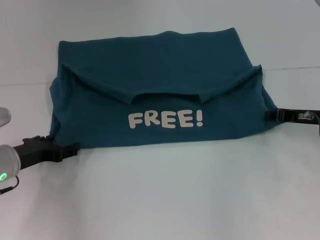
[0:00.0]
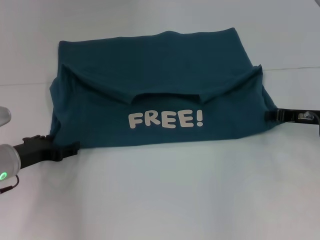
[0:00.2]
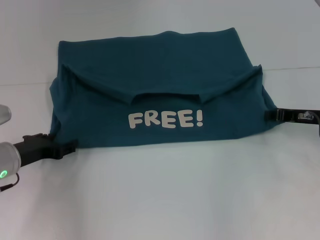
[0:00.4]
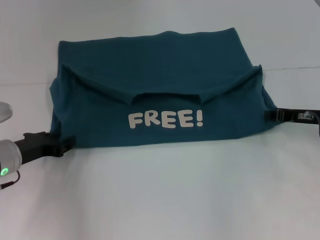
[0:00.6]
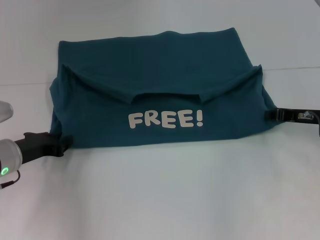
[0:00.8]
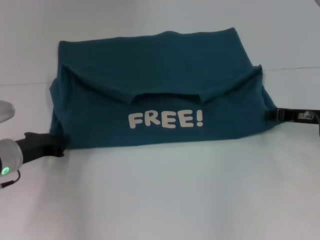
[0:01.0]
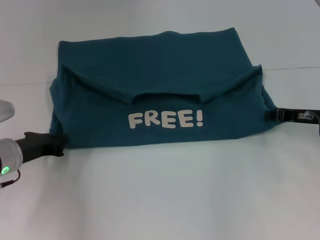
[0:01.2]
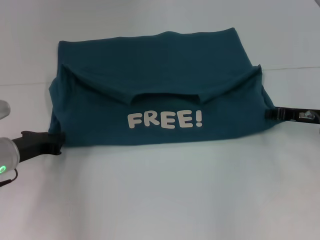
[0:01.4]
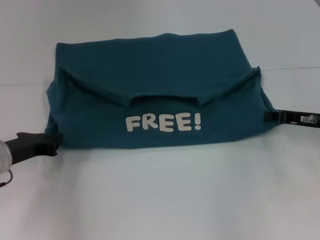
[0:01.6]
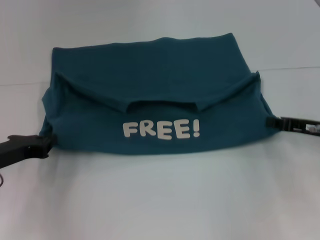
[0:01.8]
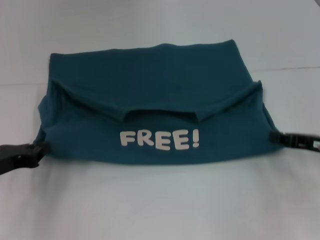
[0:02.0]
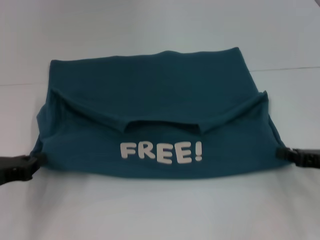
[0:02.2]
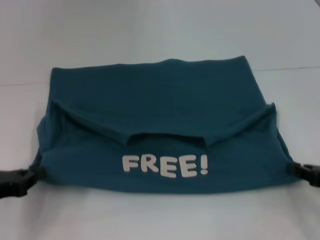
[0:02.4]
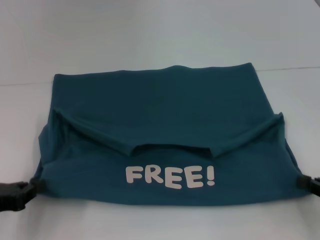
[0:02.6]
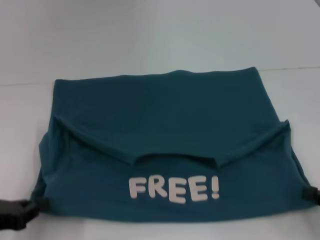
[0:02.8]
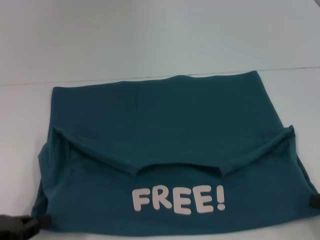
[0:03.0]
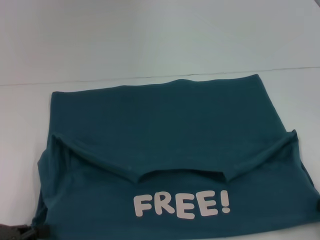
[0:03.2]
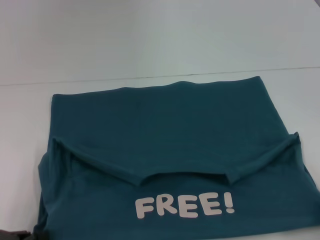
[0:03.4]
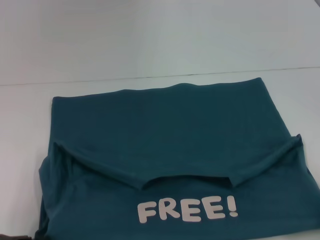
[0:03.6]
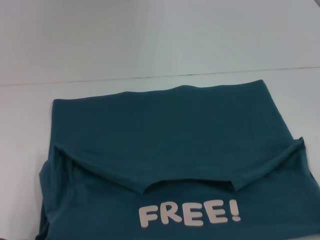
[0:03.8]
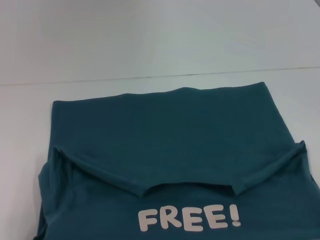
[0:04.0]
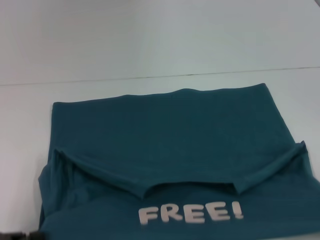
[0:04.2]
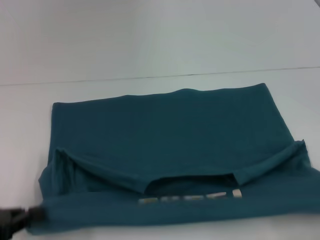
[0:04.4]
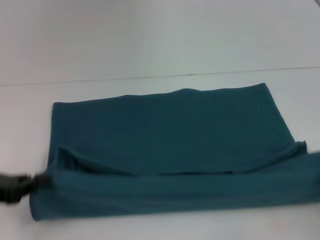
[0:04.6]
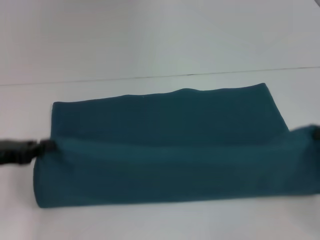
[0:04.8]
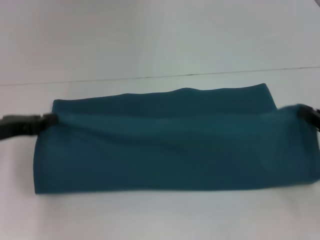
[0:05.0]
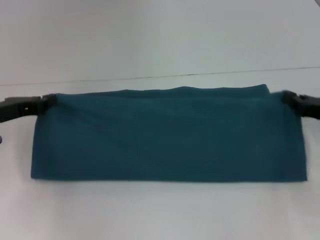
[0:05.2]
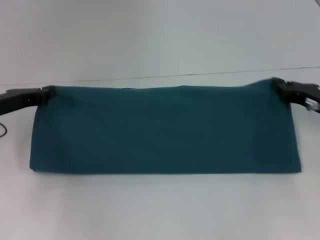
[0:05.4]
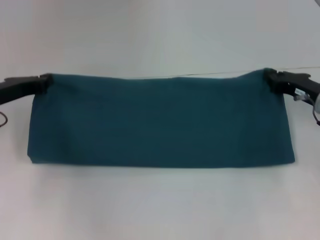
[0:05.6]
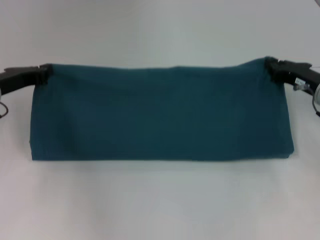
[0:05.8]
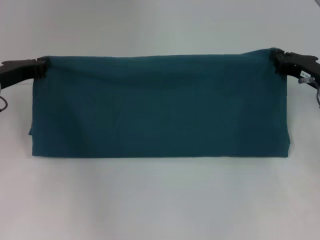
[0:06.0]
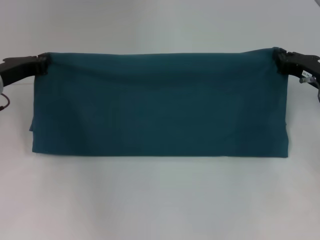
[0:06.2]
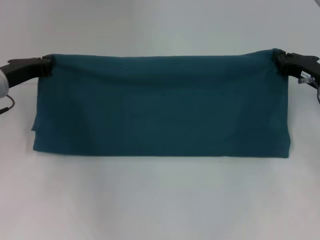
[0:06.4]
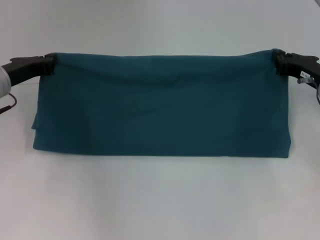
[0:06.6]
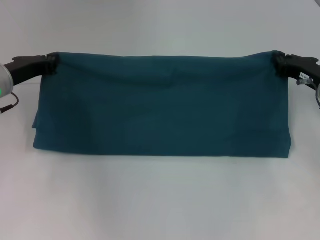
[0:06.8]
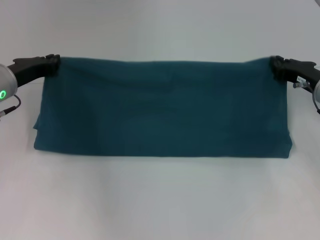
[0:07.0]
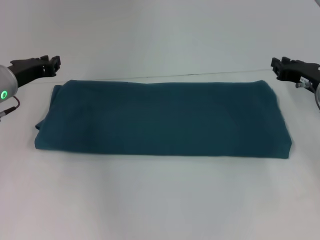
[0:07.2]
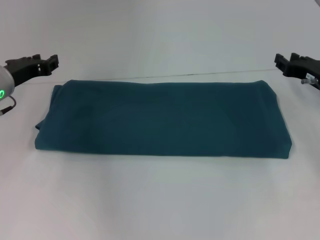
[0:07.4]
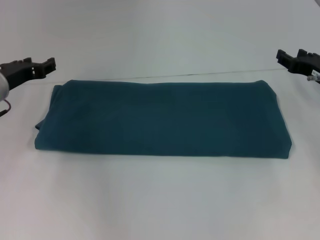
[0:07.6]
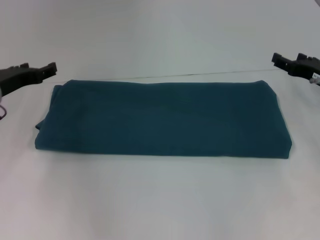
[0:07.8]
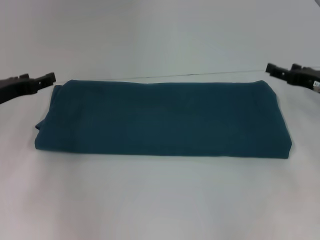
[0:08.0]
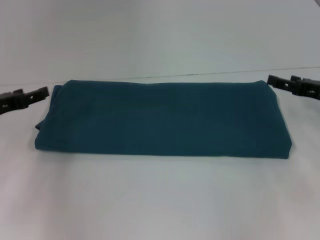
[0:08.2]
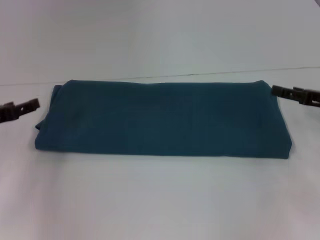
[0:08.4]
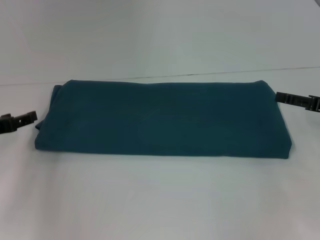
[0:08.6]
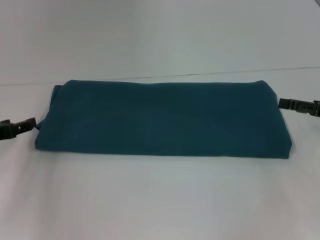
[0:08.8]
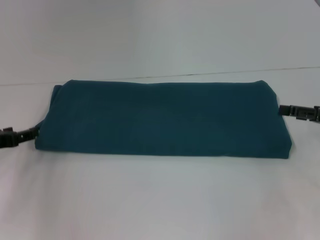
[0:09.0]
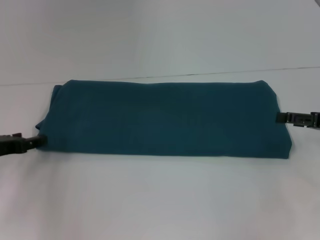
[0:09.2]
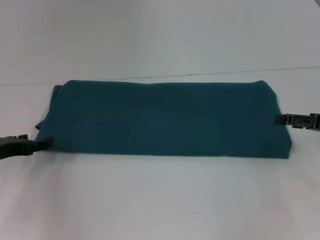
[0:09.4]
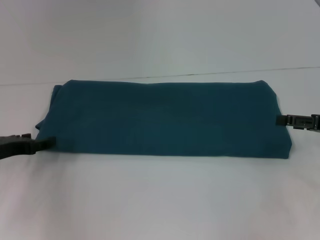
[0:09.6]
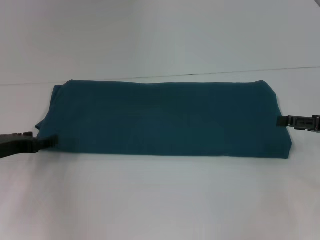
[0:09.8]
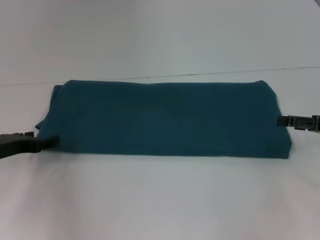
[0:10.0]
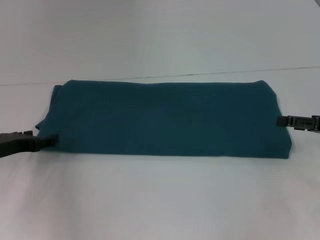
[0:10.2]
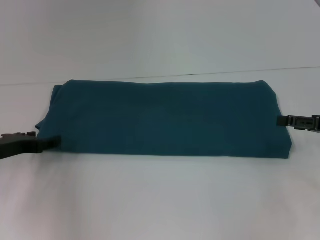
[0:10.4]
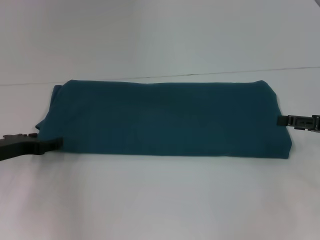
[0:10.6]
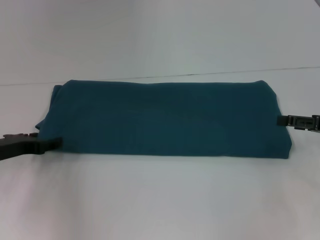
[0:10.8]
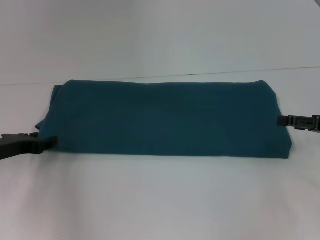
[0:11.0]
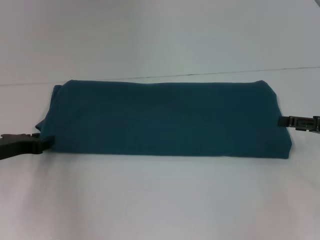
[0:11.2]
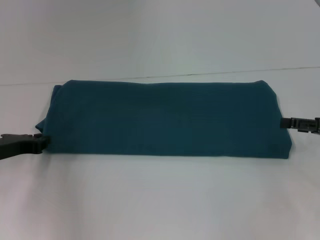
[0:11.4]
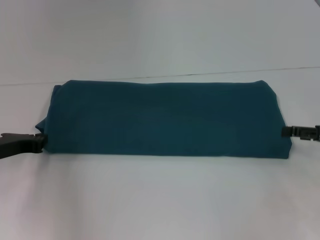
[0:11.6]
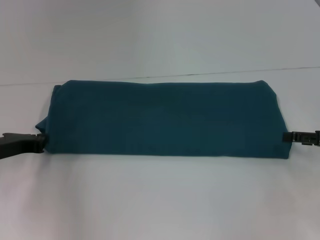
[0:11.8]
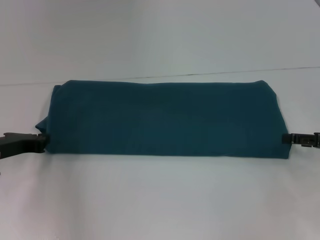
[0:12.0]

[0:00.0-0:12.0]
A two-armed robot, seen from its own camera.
Step, 0:00.0 to 0:03.4: Pull the clothes with your left hand.
Step, 0:00.0 to 0:03.4: Pull the clothes with your right hand.
Step, 0:03.6 to 0:07.0: Fold the clothes to the right.
0:00.0 to 0:01.6: The left gripper closes.
0:01.6 to 0:03.0: The right gripper travels backward by about 20 cm; the left gripper travels backward and to the left by roughly 15 cm.
0:03.0 to 0:04.4: The grippers move only a little.
0:04.4 to 0:06.0: The left gripper is displaced forward by about 20 cm. The right gripper travels forward and to the left by about 25 cm.
0:06.0 to 0:07.6: The right gripper opens its fingers. The left gripper opens.
0:07.6 to 0:09.0: The left gripper shifts some 10 cm backward and to the left. The right gripper goes about 10 cm backward, and opens up.
0:09.0 to 0:10.4: The grippers make only small movements.

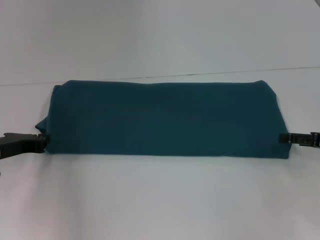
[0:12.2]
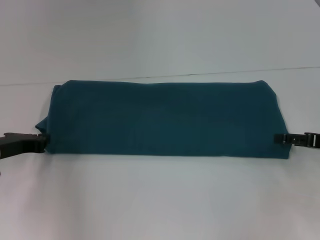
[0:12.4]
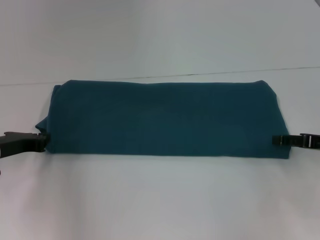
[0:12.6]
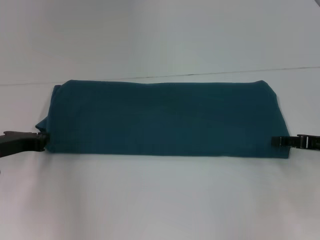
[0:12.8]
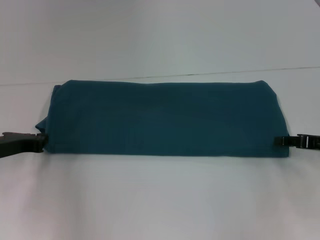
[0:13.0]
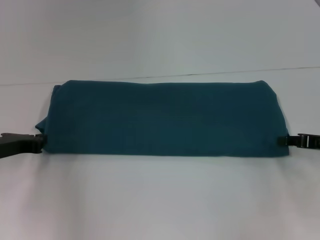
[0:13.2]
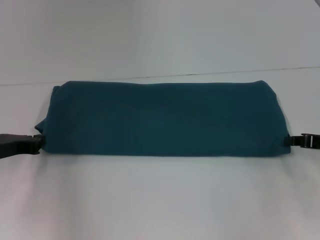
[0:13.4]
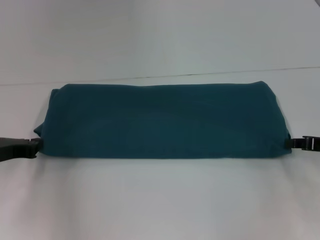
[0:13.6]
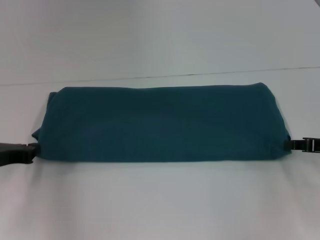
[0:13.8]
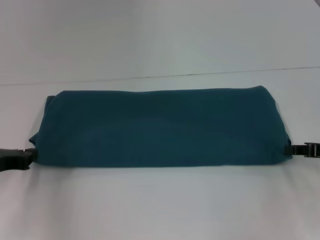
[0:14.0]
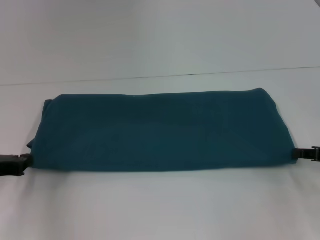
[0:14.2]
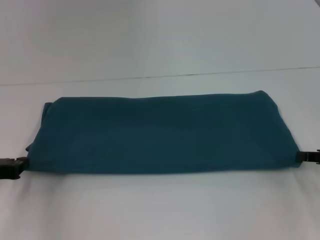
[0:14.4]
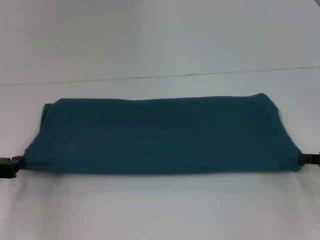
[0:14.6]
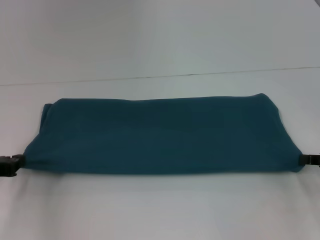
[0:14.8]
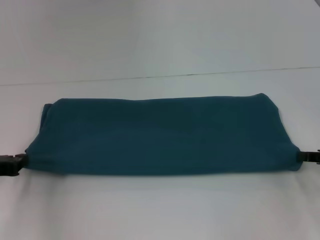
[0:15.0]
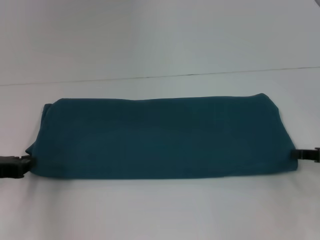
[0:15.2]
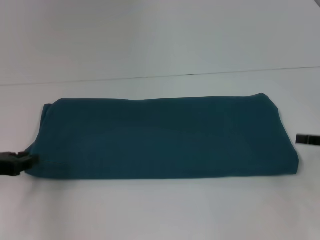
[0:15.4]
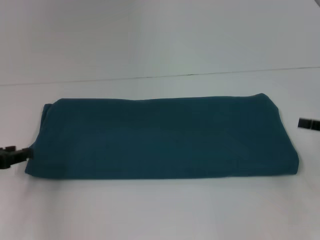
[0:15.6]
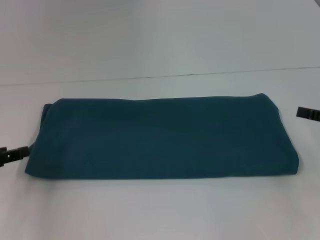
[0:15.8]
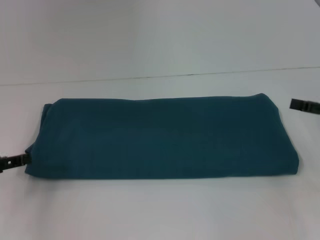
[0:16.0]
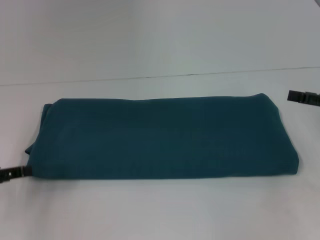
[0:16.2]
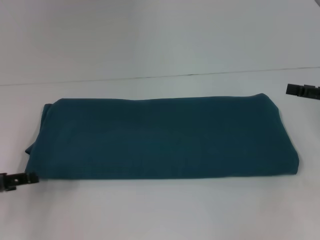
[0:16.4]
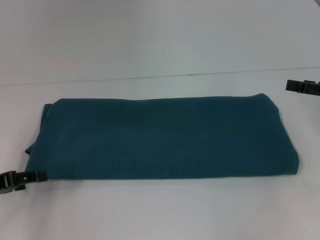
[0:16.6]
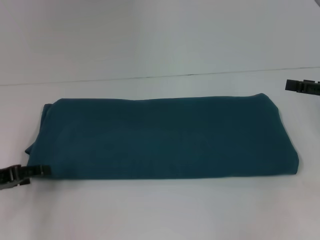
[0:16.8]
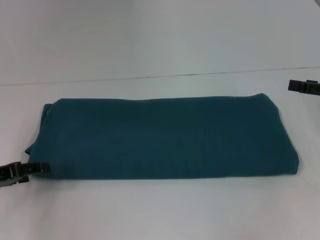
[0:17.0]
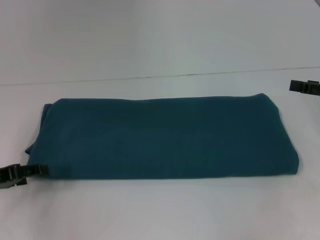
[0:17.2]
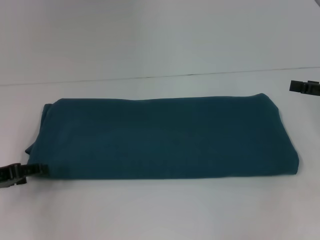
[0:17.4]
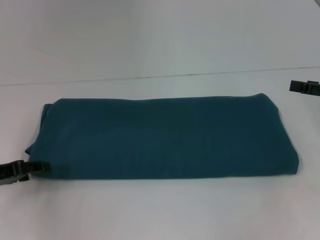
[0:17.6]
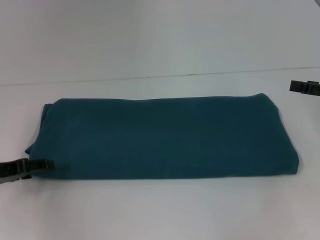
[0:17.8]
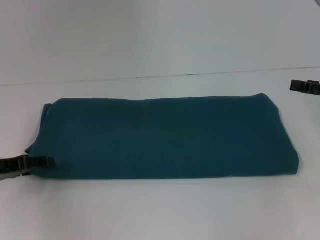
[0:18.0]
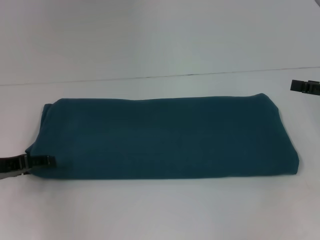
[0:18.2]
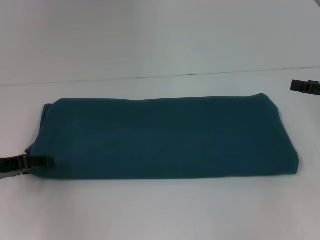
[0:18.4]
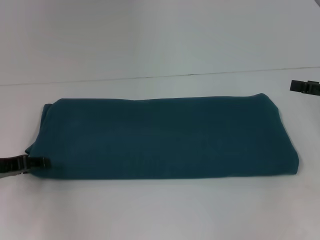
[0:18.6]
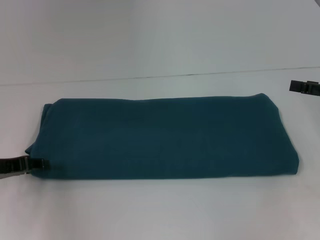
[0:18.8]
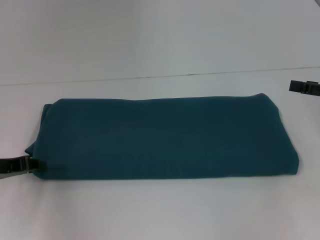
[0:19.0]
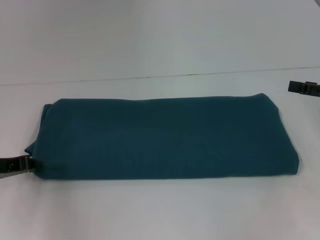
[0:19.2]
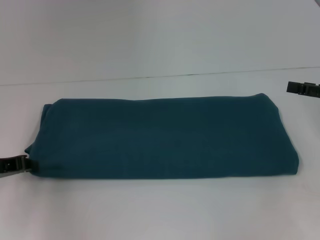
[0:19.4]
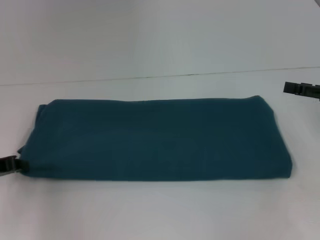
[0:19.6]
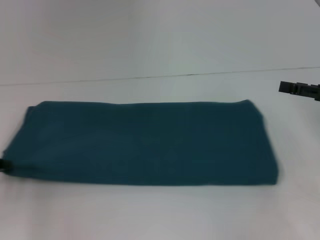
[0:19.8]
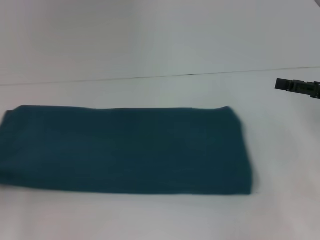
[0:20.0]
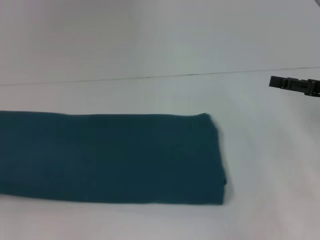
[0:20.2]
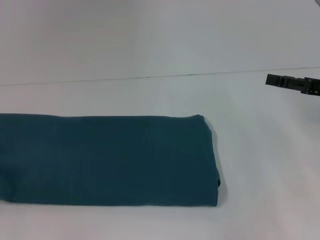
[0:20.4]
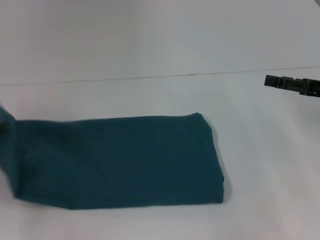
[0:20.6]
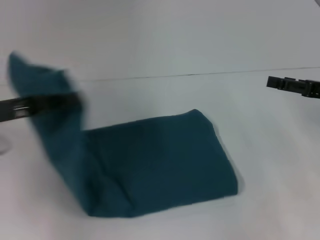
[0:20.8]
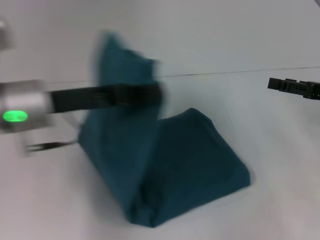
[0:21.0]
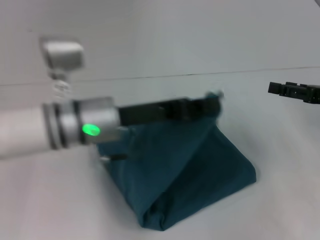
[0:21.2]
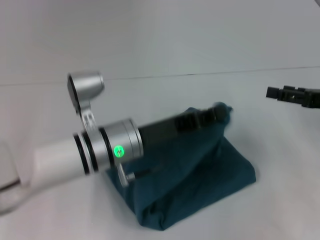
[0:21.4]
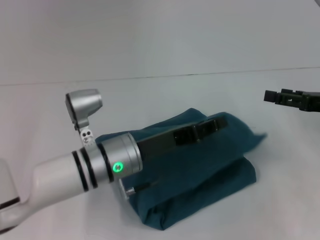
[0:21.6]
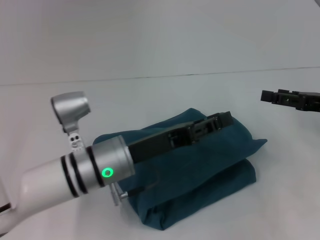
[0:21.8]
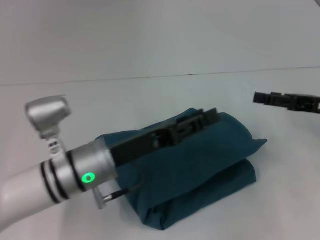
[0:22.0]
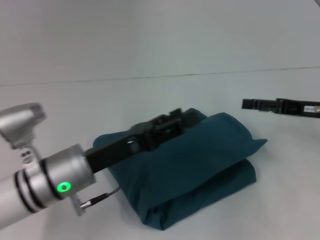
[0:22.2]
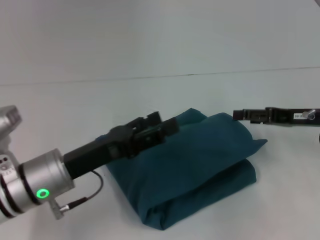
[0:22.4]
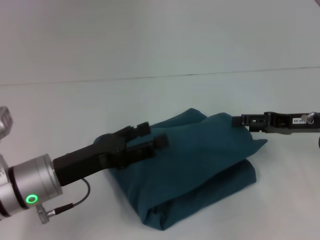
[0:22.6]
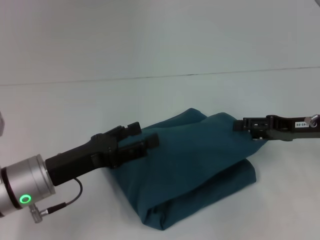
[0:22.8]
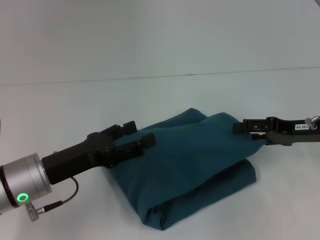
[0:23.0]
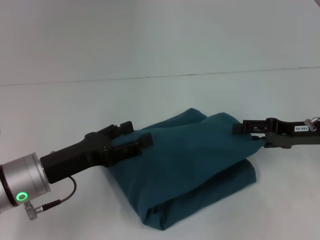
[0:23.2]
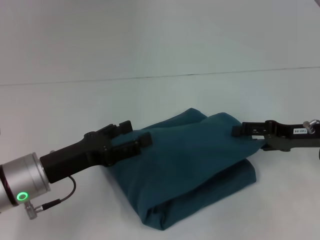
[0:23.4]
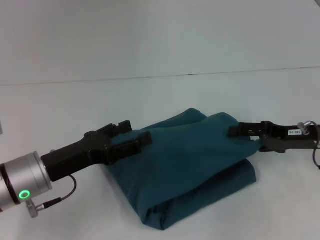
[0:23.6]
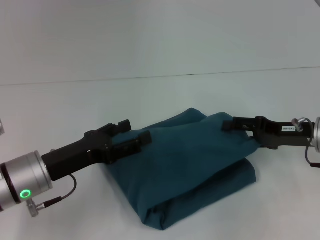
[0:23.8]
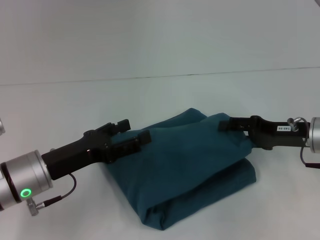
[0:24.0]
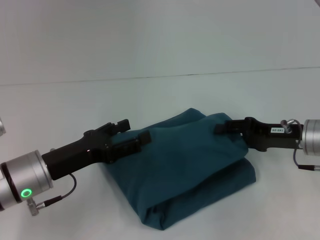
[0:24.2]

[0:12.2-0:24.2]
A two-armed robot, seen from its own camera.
Step, 0:12.2 to 0:21.6: Fold the clothes to the left.
0:12.2 to 0:13.8: The right gripper closes its fingers.
0:13.8 to 0:15.2: The grippers move only a little.
0:15.2 to 0:16.6: The right gripper moves upward, about 5 cm, and opens up. The left gripper opens up.
0:16.6 to 0:18.2: The grippers make only small movements.
0:18.2 to 0:19.8: The left gripper closes.
0:19.8 to 0:21.2: The left gripper moves to the right, about 25 cm.
0:21.2 to 0:22.6: The right gripper ends up about 5 cm from where it was. Meanwhile the left gripper travels to the left, downward and backward by roughly 10 cm, and opens its fingers.
0:22.6 to 0:24.2: The grippers stay close to where they were, moving slightly.
